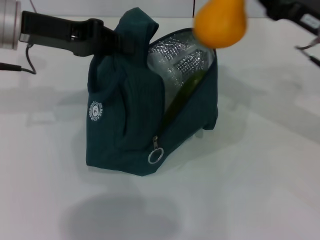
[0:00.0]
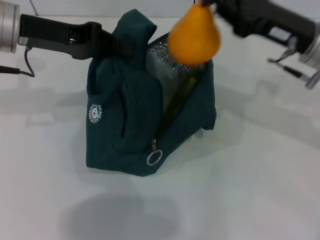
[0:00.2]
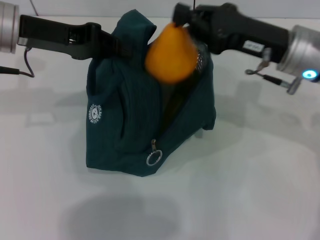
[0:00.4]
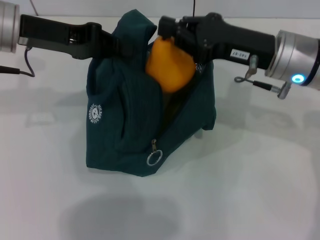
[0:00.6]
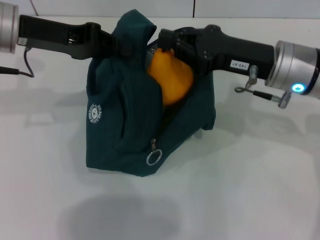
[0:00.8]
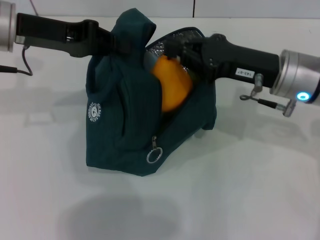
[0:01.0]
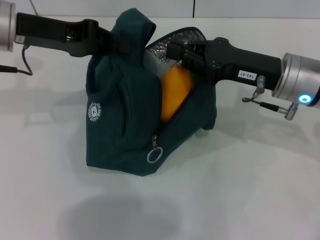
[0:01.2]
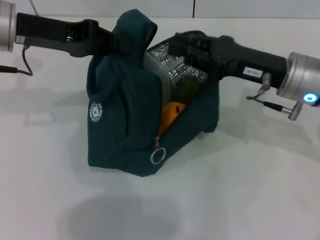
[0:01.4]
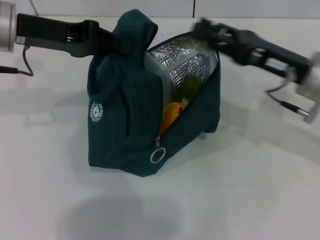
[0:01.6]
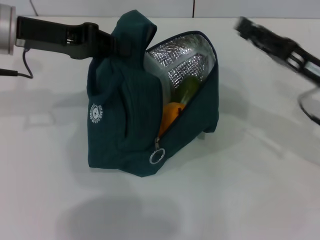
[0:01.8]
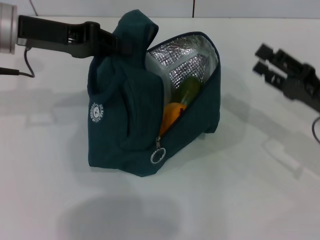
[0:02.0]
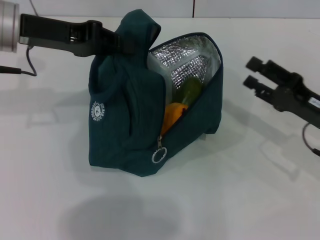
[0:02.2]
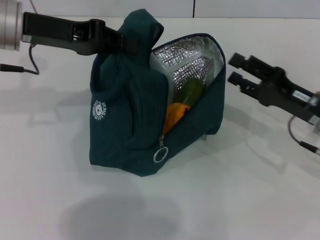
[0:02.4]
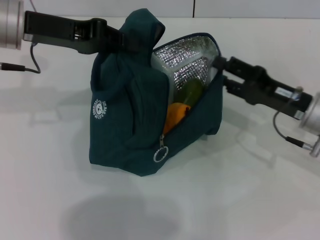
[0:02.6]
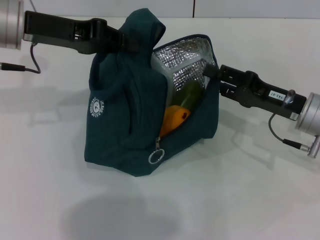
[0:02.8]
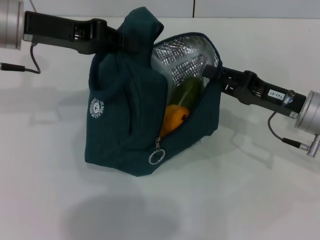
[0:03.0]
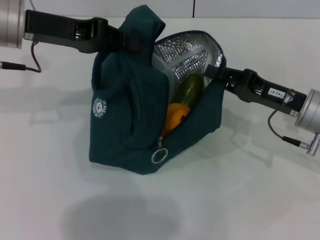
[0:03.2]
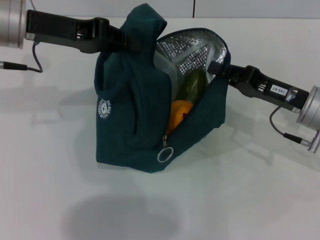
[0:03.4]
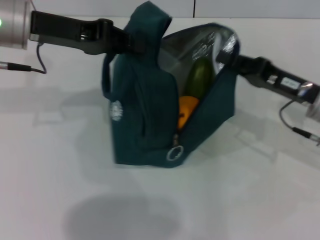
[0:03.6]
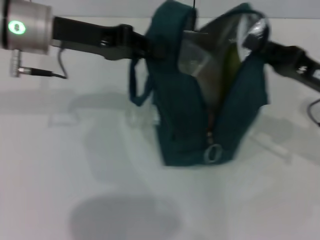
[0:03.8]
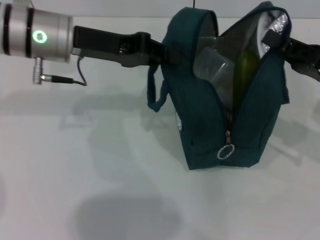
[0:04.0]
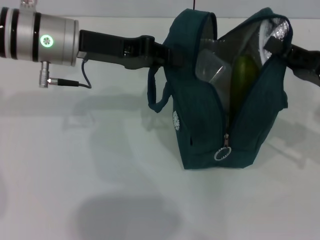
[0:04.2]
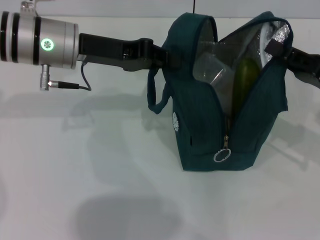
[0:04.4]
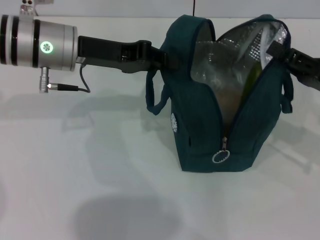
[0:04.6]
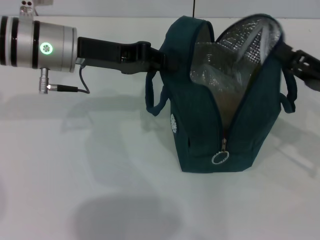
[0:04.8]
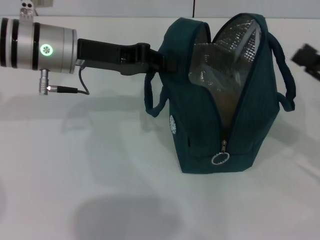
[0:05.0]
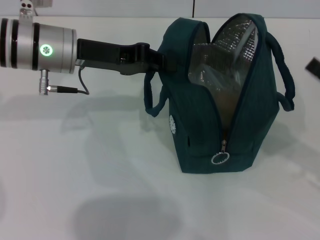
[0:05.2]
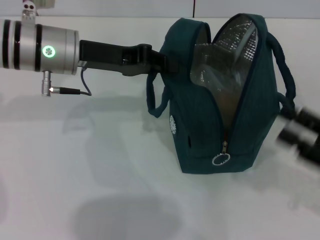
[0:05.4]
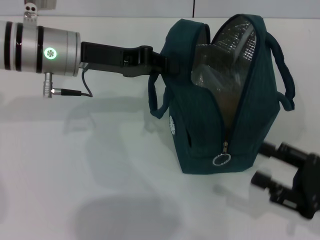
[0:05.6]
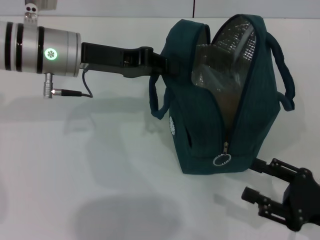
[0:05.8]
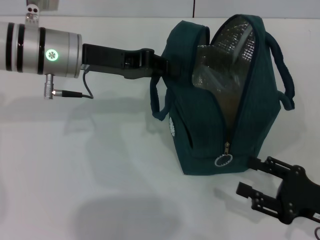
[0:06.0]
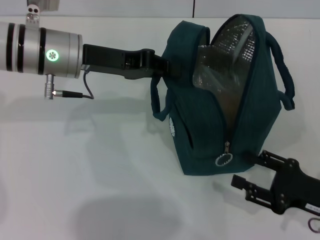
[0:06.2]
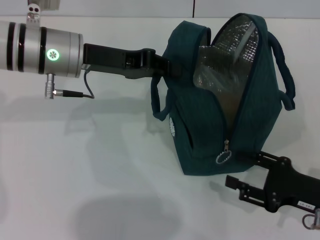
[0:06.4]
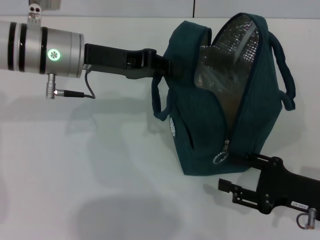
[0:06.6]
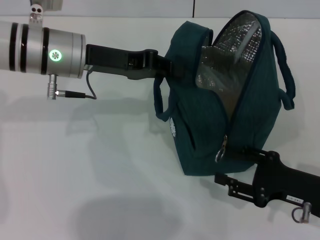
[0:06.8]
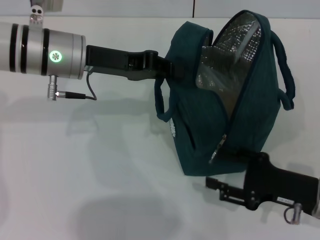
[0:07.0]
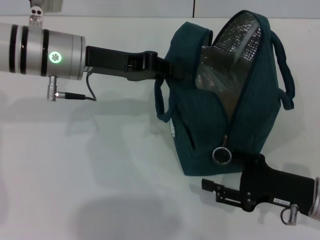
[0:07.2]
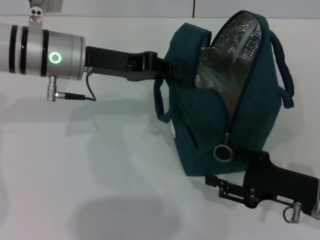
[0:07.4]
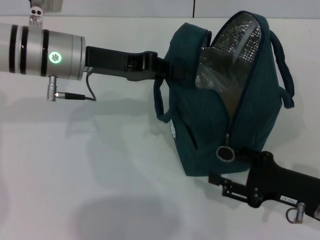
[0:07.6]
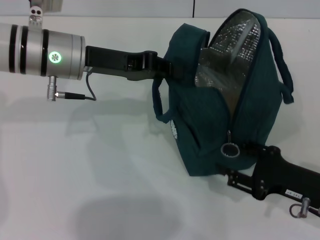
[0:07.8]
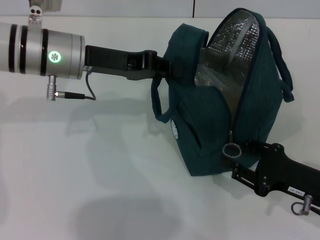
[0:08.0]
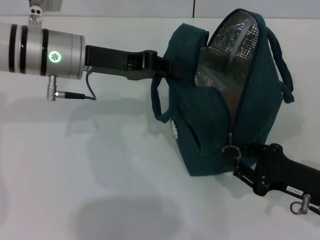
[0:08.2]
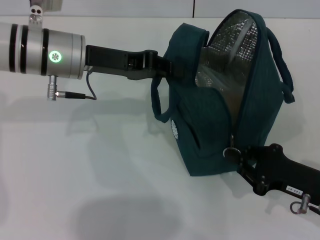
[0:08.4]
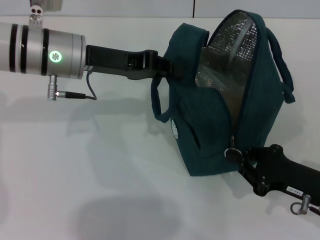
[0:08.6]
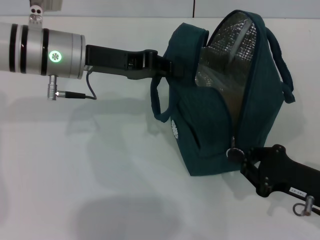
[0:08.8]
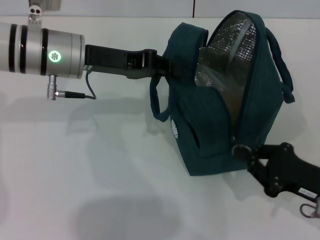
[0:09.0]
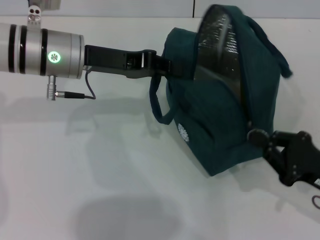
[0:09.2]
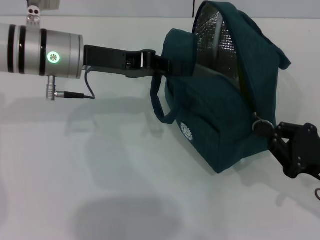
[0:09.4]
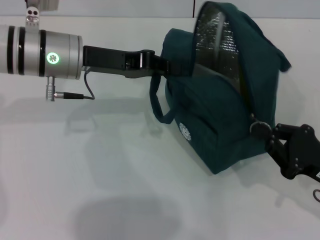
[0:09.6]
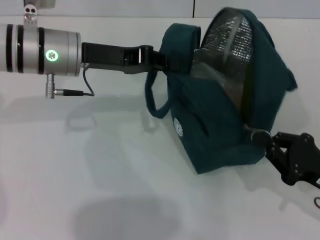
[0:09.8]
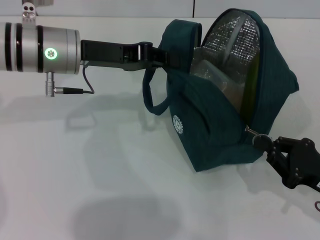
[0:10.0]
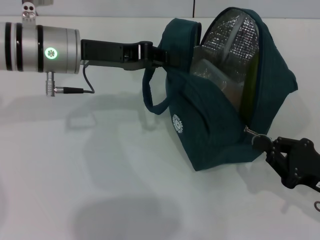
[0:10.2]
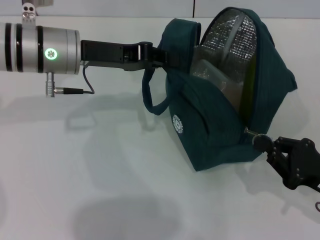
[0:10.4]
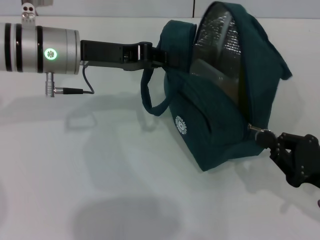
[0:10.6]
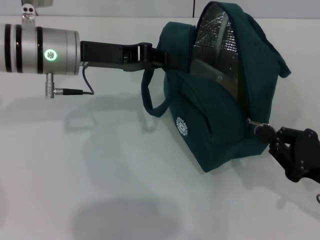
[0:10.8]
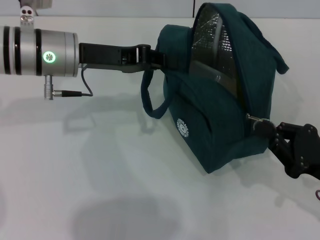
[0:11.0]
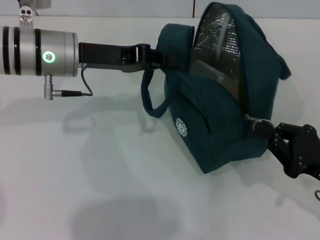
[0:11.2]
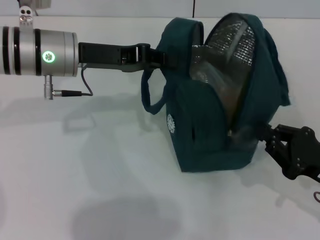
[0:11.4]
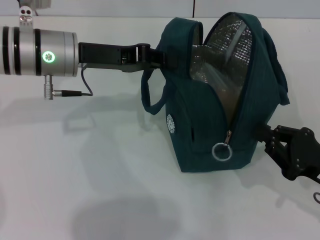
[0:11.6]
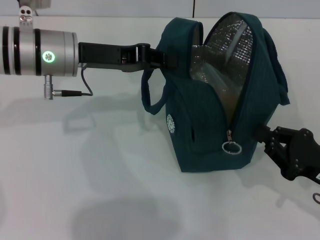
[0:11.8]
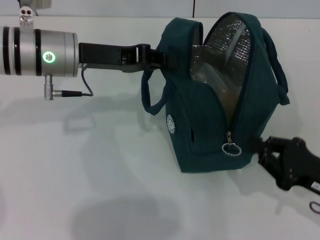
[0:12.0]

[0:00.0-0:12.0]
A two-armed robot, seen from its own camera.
Step, 0:01.6 to 0:04.8: Hold the lunch bag with your right hand.
0:00.0 to 0:01.6: The right gripper shifts by roughly 5 cm.
0:01.6 to 0:03.0: The right gripper heads downward, covering some 5 cm, and opens its fingers.
0:03.0 to 0:04.4: The two grippers go some 5 cm to the right. The right gripper closes up.
0:04.4 to 0:06.0: The right gripper travels backward and downward by roughly 15 cm, and opens.
0:06.0 to 0:07.6: The grippers stay close to where they were, moving slightly.
0:07.6 to 0:09.0: The right gripper closes.
0:09.0 to 0:12.0: The grippers make only small movements.

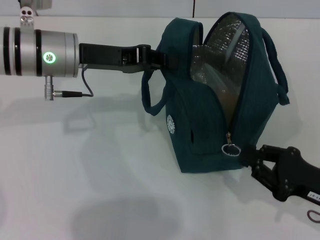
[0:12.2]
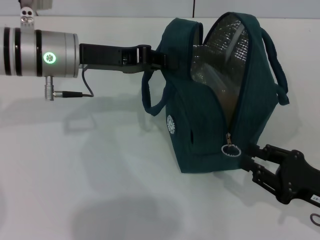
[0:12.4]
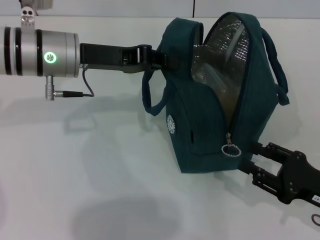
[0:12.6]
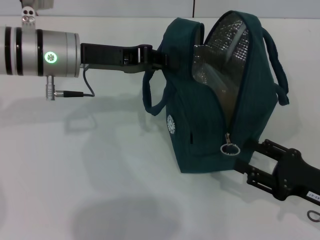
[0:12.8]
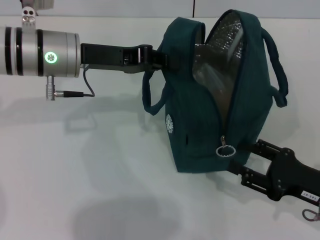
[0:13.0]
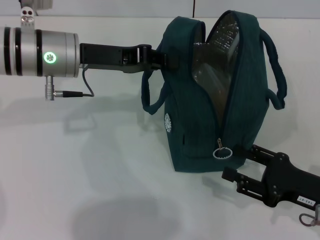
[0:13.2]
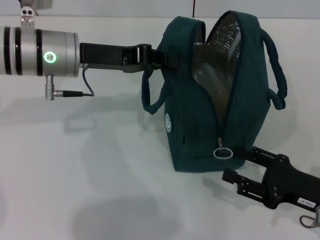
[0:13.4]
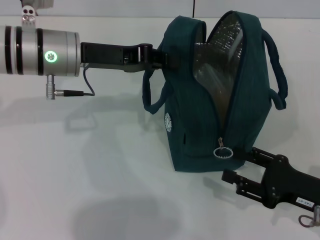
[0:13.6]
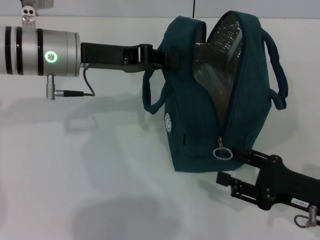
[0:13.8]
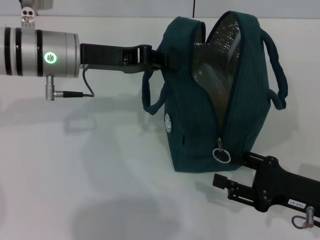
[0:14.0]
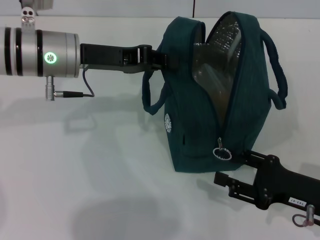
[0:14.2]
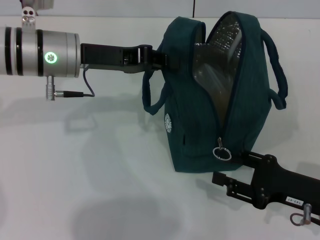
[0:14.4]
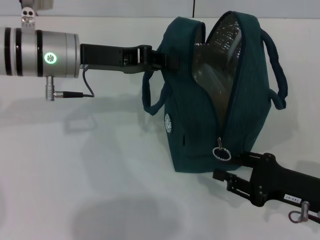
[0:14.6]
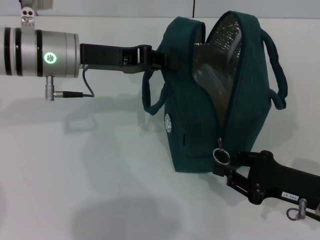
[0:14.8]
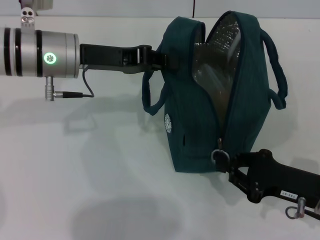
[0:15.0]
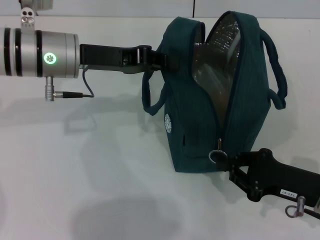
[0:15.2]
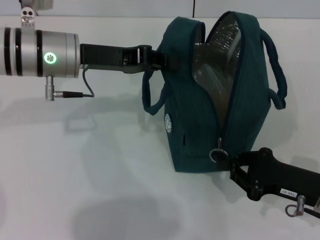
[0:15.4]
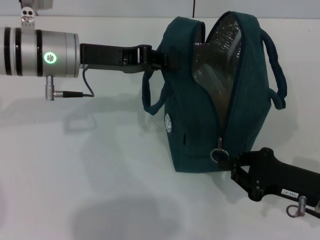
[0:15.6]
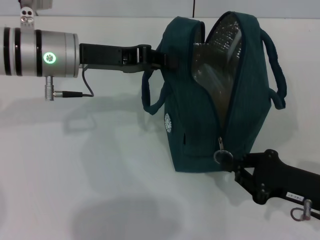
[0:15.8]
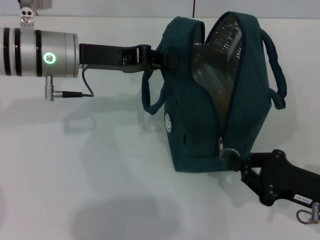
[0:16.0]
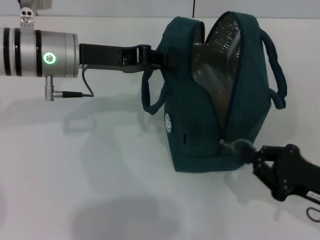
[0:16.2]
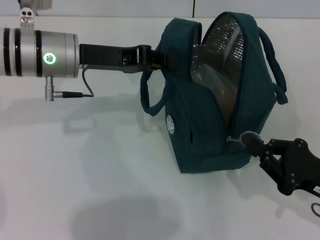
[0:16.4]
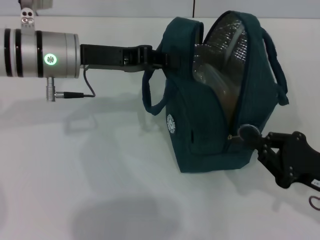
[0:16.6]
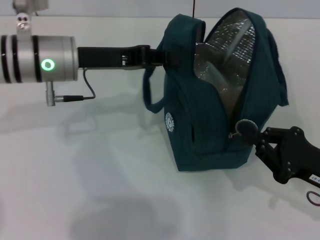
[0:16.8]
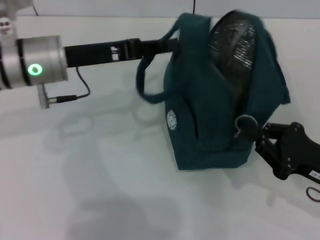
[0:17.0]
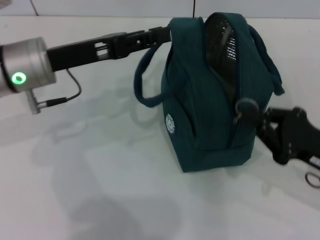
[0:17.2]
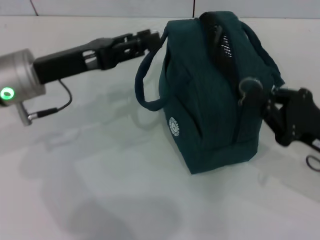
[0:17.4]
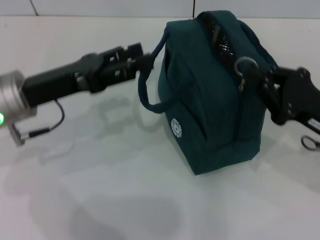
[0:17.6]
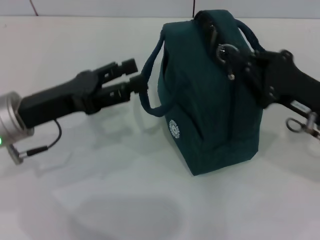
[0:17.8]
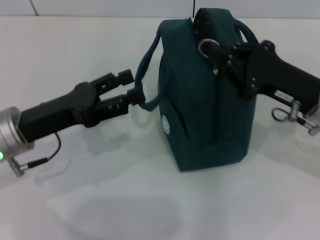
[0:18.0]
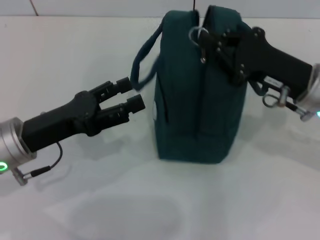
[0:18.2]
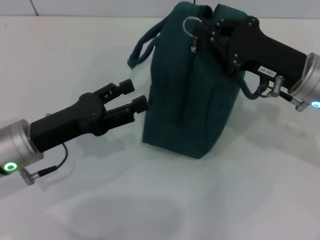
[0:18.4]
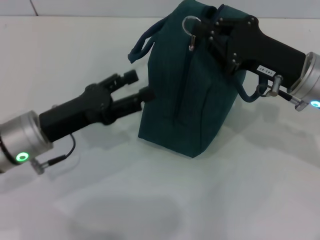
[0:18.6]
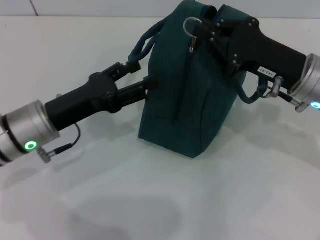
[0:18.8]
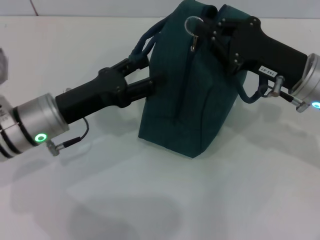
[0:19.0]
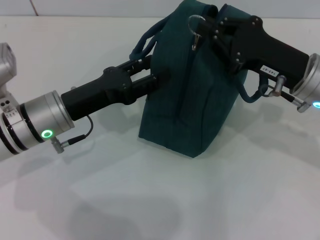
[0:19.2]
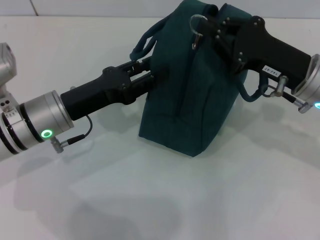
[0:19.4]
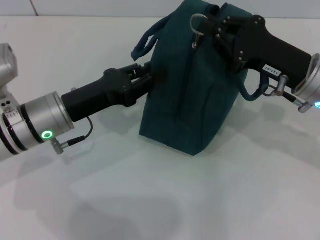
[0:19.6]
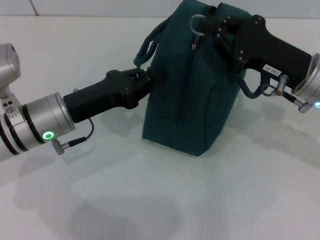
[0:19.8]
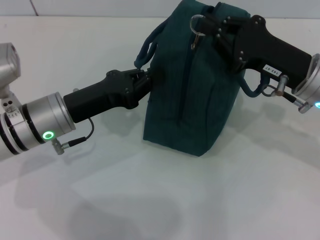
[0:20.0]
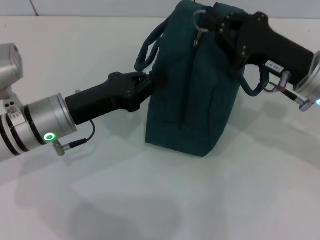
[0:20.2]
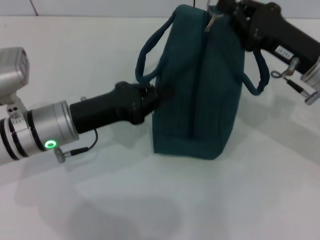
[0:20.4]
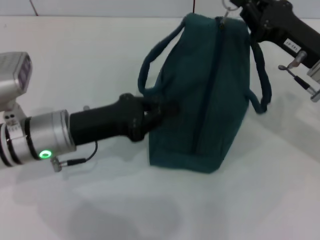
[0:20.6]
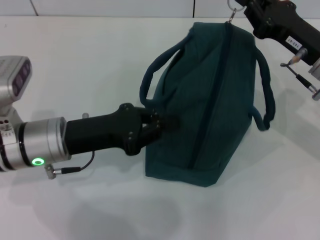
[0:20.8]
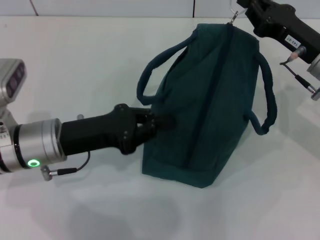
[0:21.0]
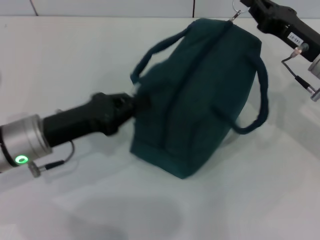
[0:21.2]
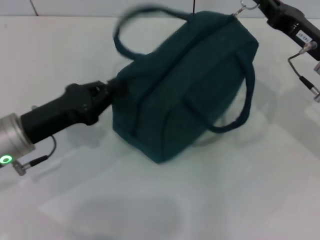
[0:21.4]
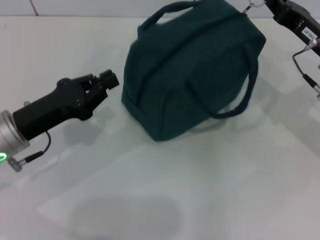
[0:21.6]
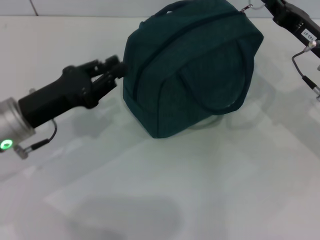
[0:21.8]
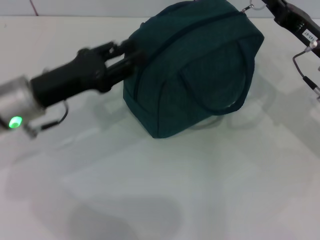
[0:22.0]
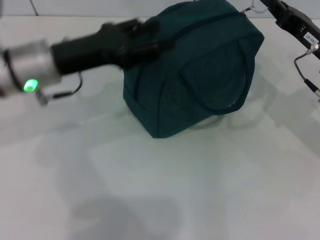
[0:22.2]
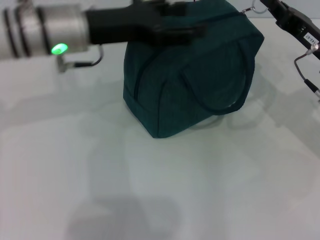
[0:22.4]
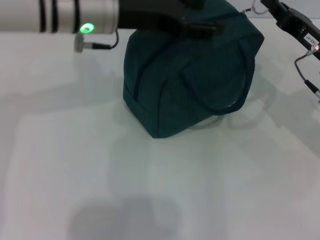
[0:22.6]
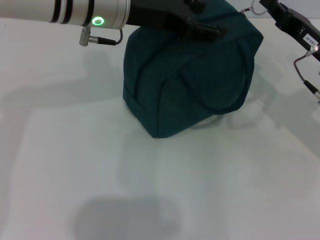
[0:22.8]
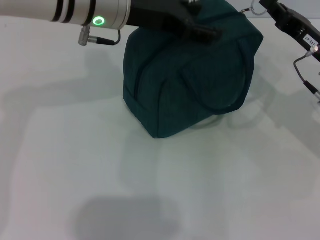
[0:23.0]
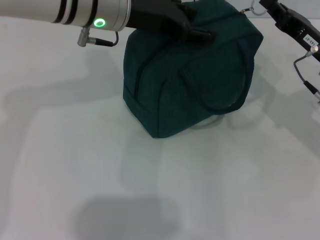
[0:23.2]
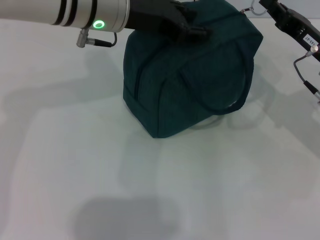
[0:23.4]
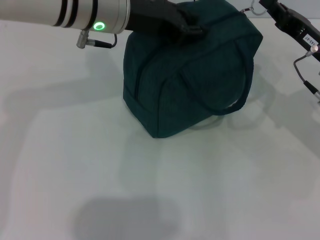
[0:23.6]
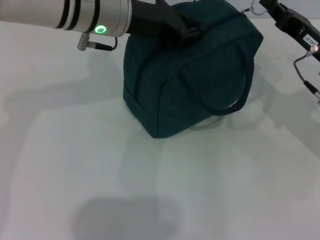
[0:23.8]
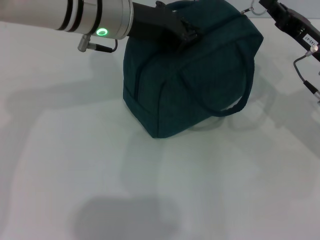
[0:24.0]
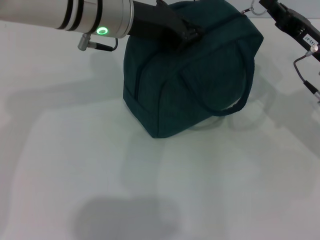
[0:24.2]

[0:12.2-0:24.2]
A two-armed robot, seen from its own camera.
Step, 0:12.2 to 0:17.0: Hold the lunch bag with your left hand.
0:12.2 to 0:13.8: The right gripper opens up.
0:13.8 to 0:15.2: The right gripper closes its fingers.
0:15.2 to 0:16.6: The grippers make only small movements.
0:16.6 to 0:18.2: The right gripper moves forward, upward and to the left, approximately 15 cm. The left gripper goes roughly 15 cm backward, downward and to the left, and opens its fingers.
0:18.2 to 0:19.8: The left gripper changes place by some 5 cm, and closes its fingers.
0:21.2 to 0:22.6: The left gripper is displaced upward, forward and to the right by about 20 cm, and opens its fingers.
0:22.6 to 0:24.2: The left gripper closes up.
